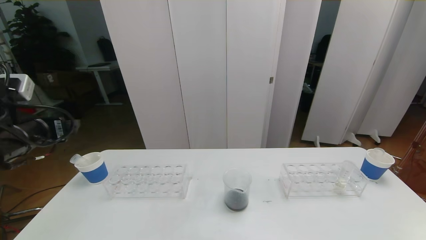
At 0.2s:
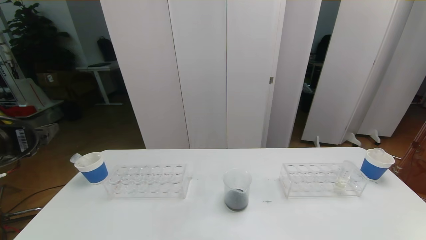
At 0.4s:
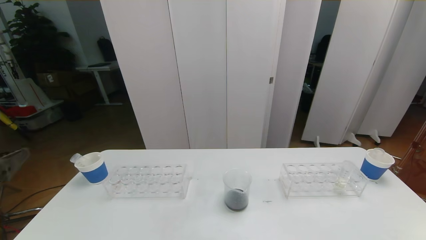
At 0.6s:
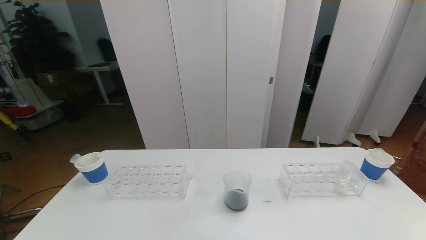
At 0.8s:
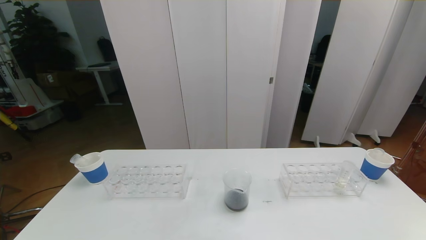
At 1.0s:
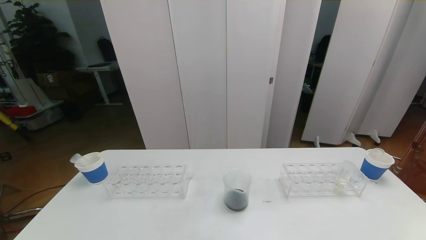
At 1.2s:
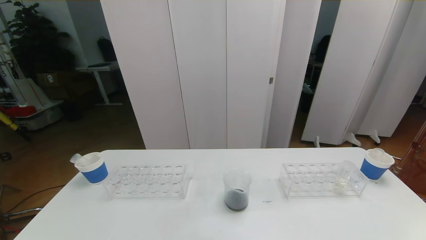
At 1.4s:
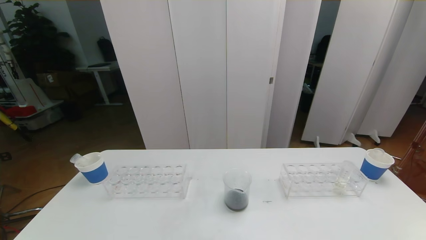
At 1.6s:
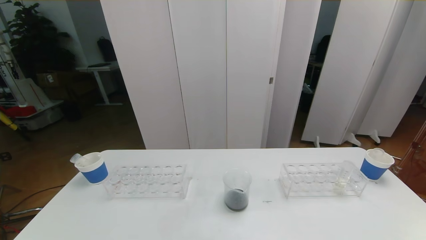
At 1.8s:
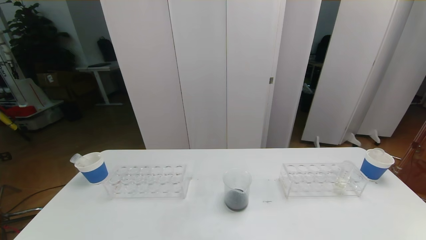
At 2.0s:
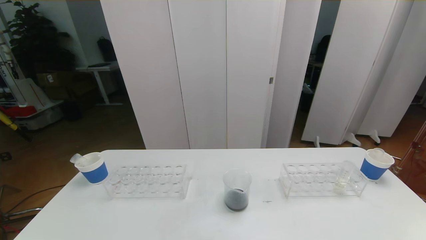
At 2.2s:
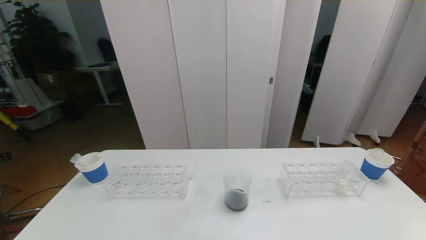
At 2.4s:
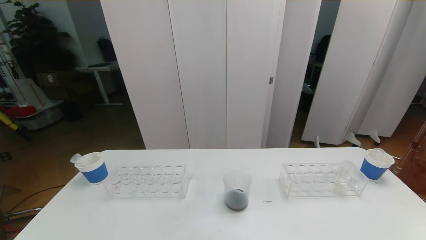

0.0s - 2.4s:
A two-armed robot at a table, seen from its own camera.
Task of the whole recording: pick up the test tube with red pigment the test tube with blue pigment and the test tube with white pigment by grippers and pour them into the beaker.
Step, 0.0s - 2.4s: Pour the orange reagent into the graduated cylinder and place the test tube into the paper cup.
0.0s - 1.2s: The left gripper heads backward, covering about 30 cm.

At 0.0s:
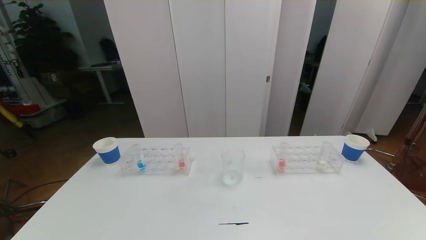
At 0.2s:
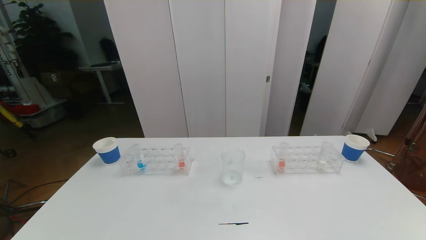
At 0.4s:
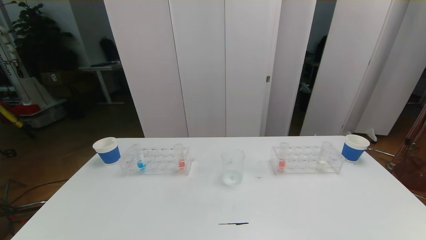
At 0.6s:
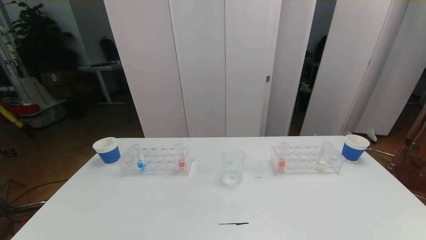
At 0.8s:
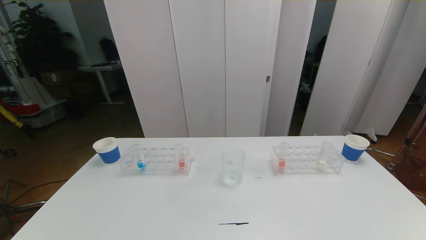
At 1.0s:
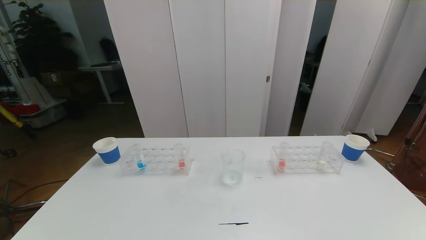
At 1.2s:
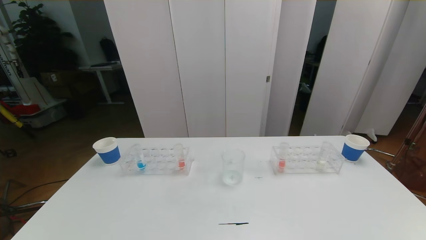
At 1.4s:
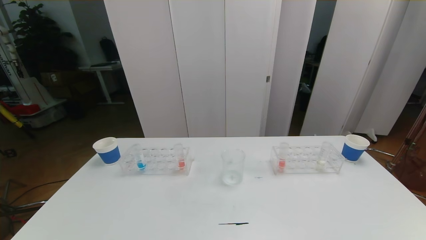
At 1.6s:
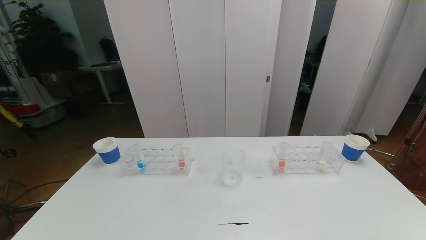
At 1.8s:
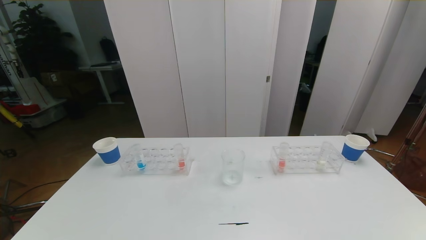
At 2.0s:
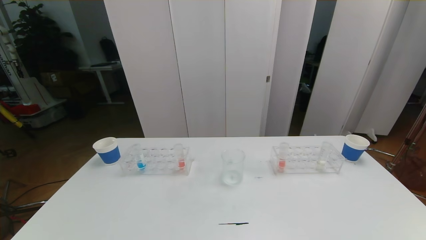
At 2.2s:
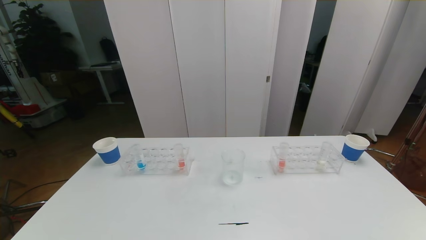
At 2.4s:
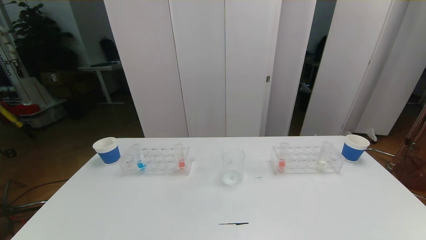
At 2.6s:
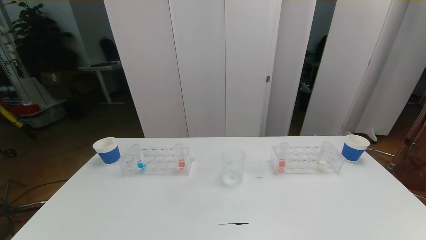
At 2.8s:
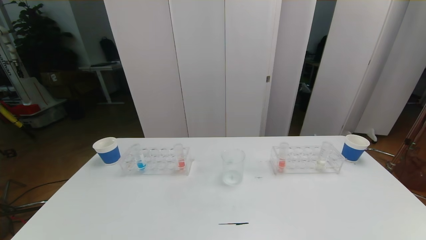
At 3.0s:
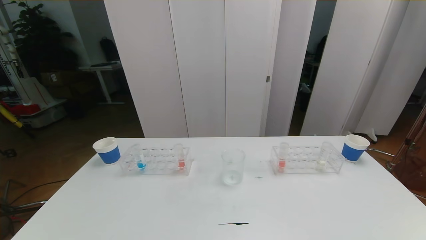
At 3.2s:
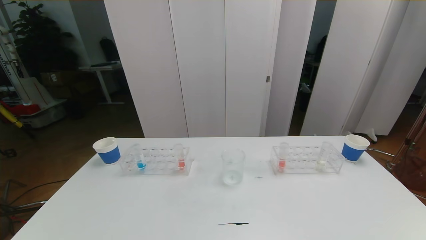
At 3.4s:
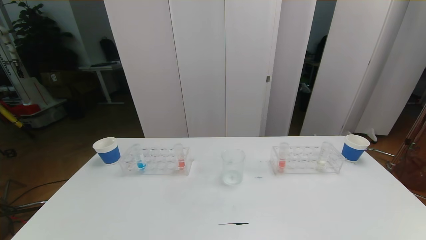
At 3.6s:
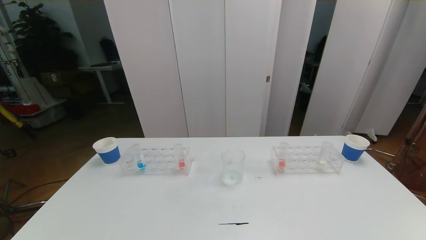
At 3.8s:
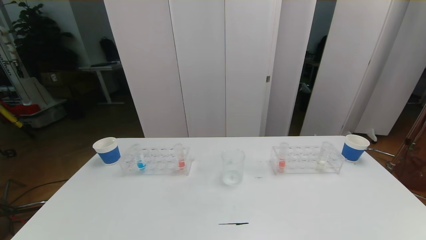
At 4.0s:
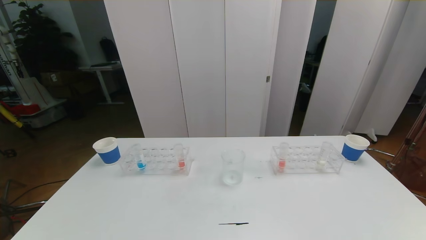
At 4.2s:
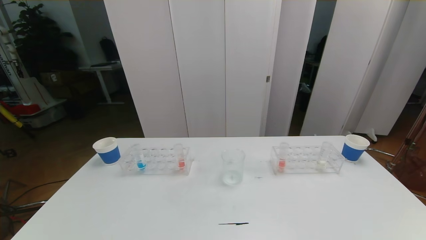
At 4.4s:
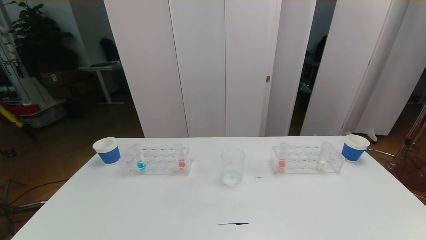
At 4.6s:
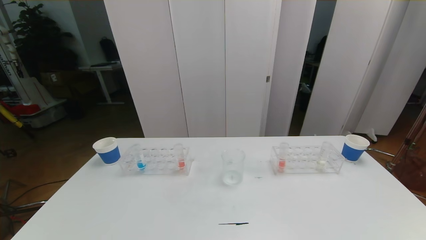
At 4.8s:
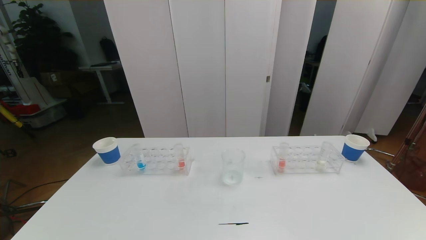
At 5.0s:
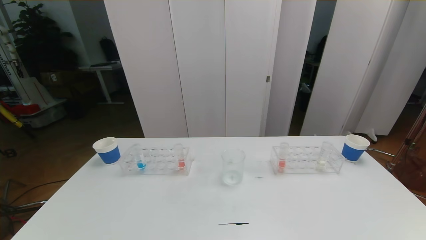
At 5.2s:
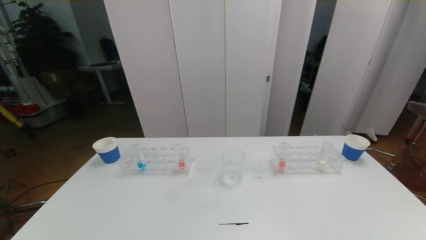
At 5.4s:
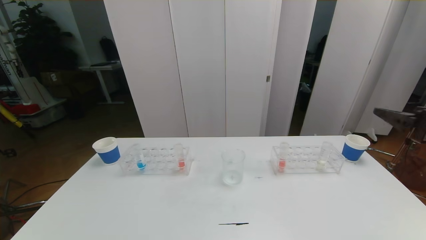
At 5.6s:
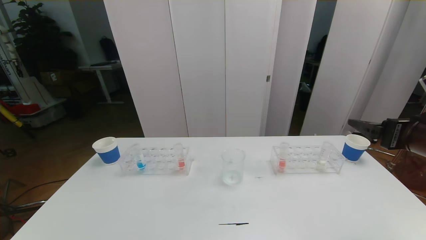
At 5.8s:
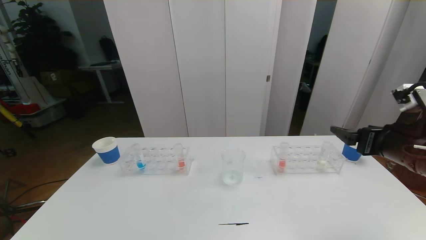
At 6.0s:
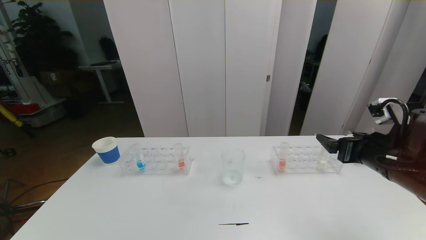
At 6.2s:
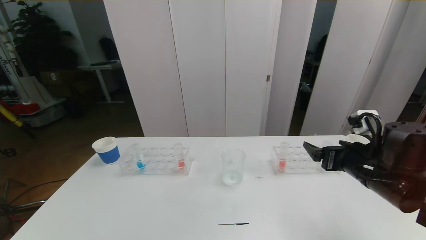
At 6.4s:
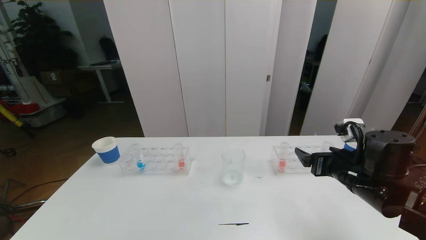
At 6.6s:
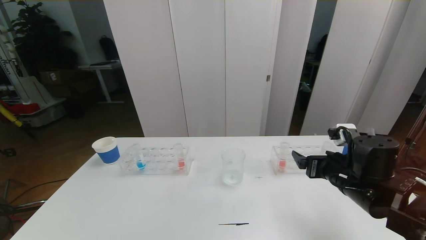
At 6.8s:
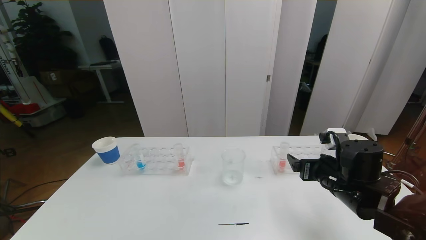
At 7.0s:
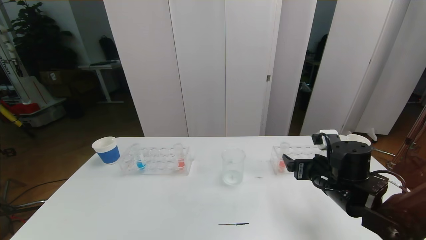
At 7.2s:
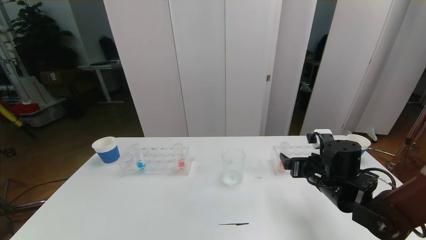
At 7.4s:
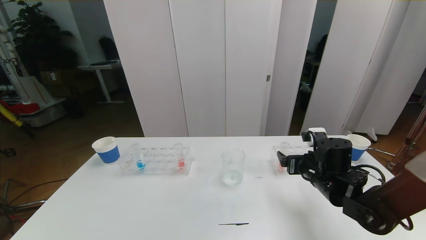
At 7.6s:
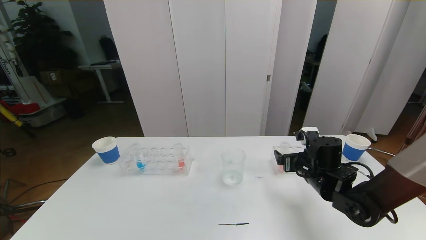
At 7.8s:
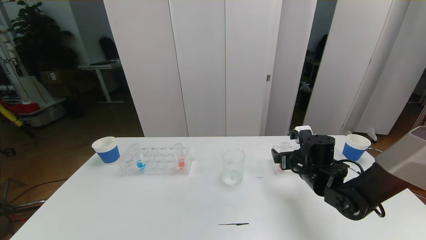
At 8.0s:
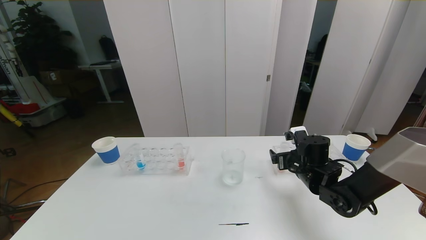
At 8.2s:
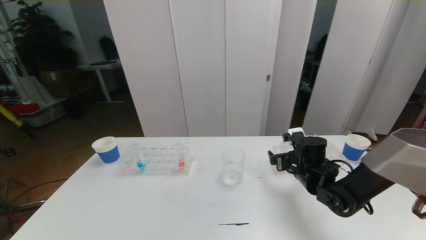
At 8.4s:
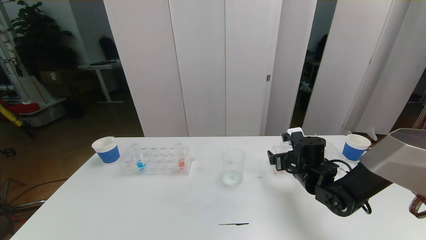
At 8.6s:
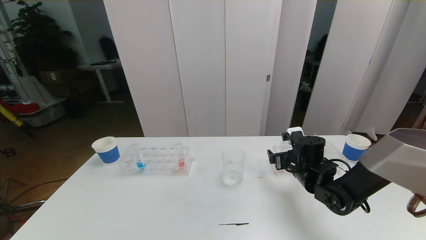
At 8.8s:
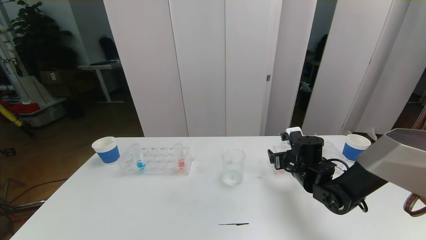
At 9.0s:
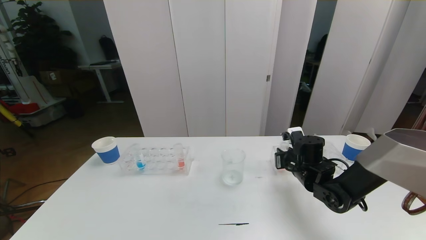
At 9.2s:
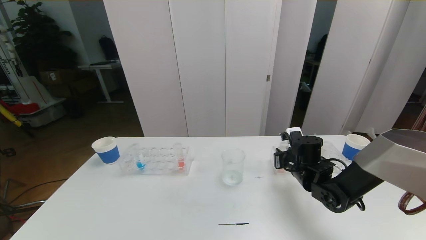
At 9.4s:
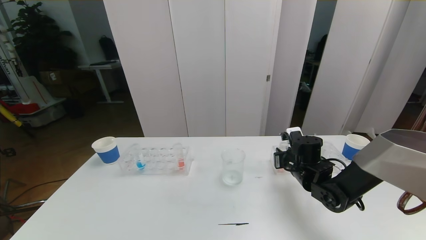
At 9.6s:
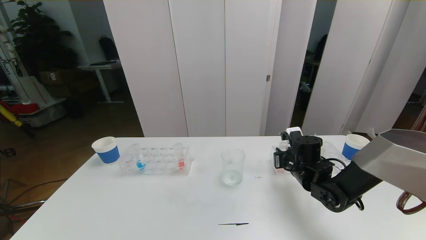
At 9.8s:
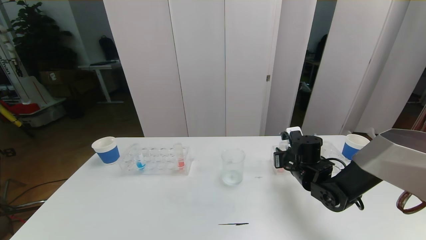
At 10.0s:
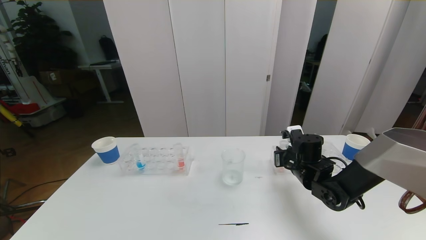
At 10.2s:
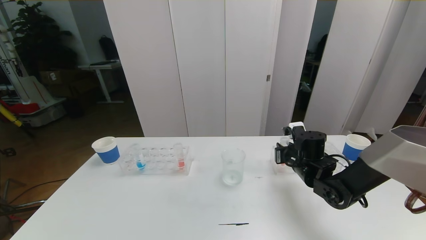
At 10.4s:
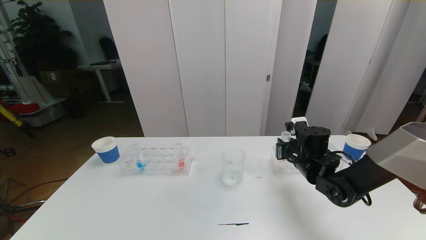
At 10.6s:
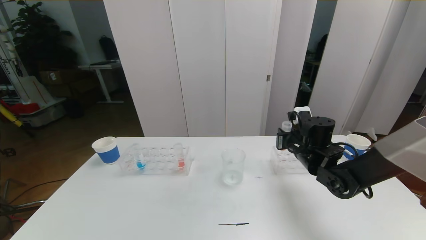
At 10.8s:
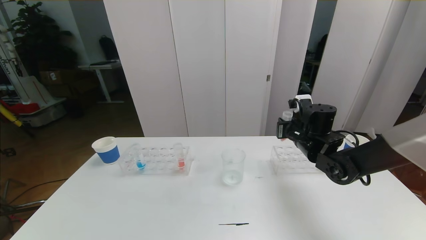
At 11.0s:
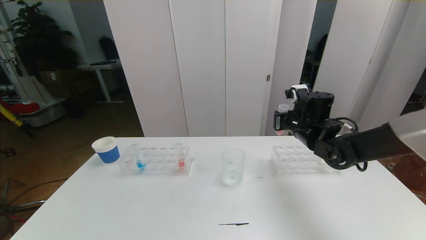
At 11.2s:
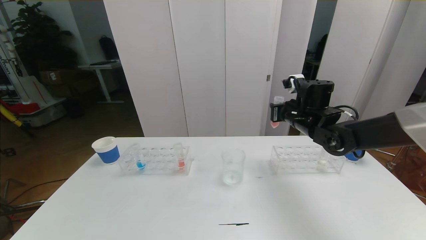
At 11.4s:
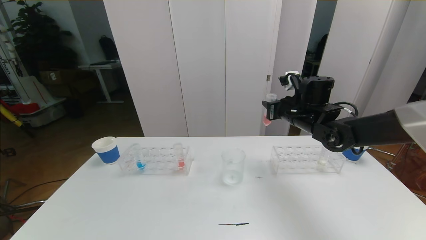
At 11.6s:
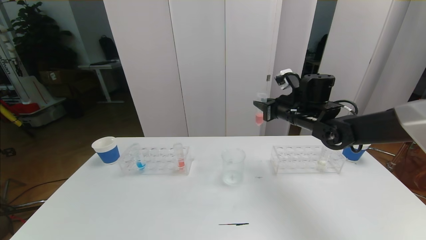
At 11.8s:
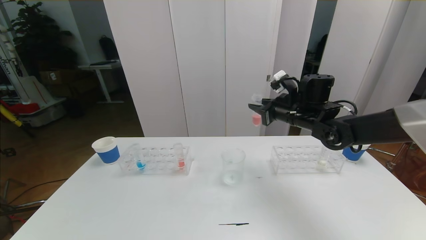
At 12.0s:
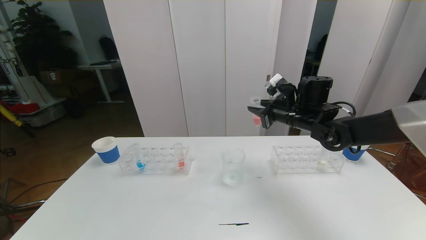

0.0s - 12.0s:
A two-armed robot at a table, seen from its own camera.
Task of the whole recording: pick up the test tube with red pigment the test tube with blue pigment and the test tube with white pigment by grippers and pour them into the beaker.
0.0s - 3.0s: The two grippers keep their place.
4.4s - 6.0s: The right gripper heads forward, covering some 25 cm.
6.0s - 7.6s: The right gripper shifts about 15 cm downward, forward and to the left.
7.6s - 9.0s: The right gripper closes its fingers.
9.0s - 10.4s: There are only small adjustments of the grippers.
10.4s - 12.0s: The right gripper shifts some 10 cm upward.

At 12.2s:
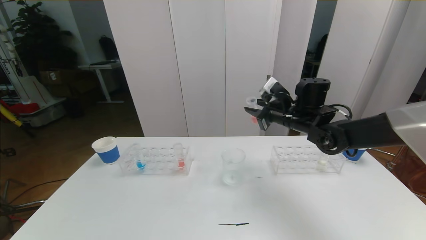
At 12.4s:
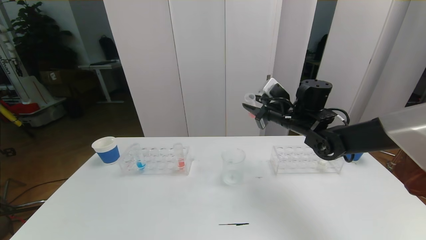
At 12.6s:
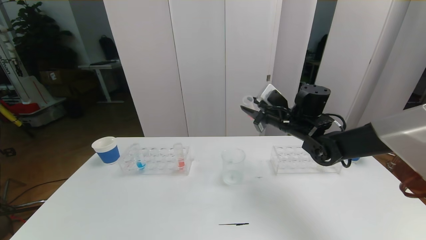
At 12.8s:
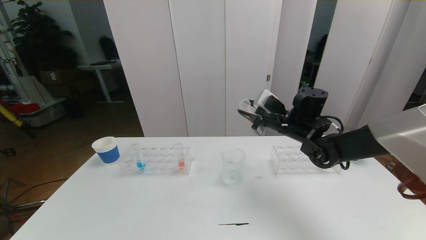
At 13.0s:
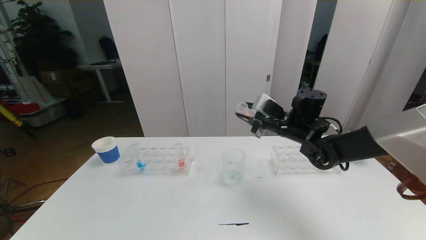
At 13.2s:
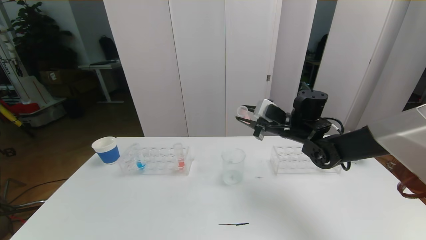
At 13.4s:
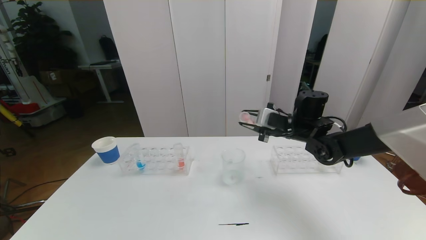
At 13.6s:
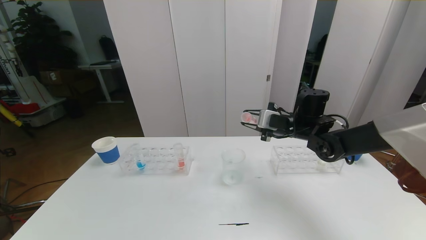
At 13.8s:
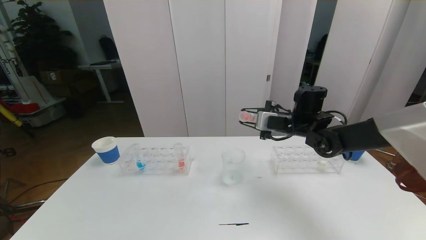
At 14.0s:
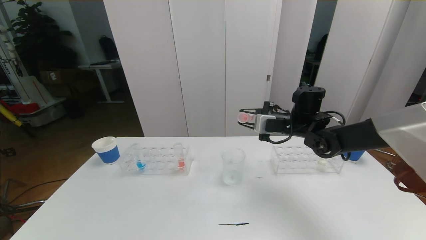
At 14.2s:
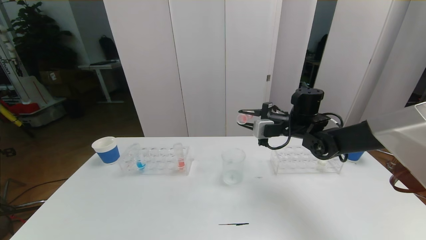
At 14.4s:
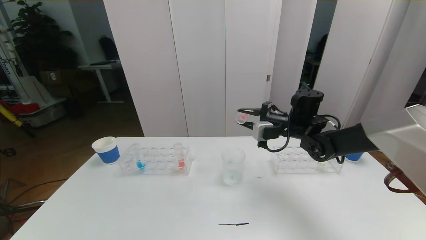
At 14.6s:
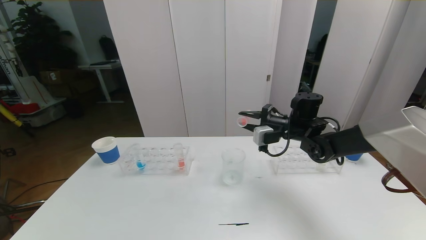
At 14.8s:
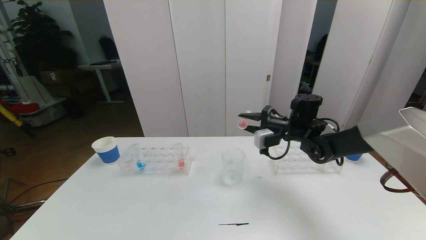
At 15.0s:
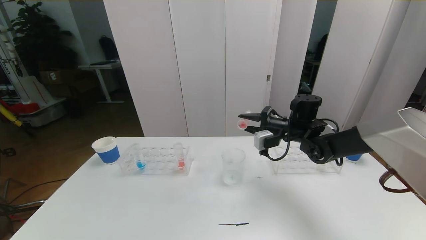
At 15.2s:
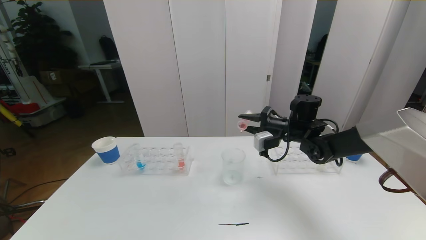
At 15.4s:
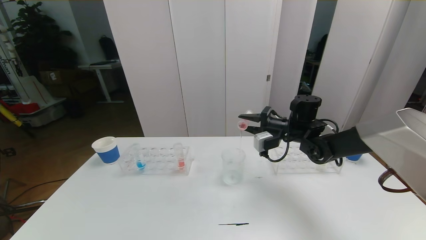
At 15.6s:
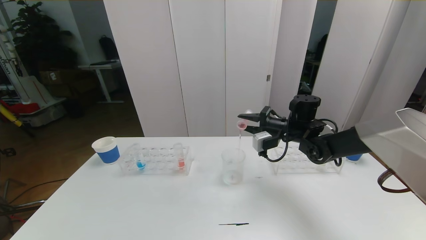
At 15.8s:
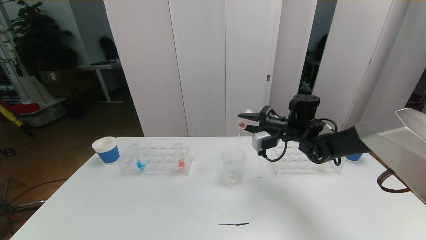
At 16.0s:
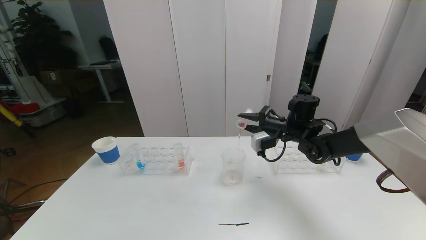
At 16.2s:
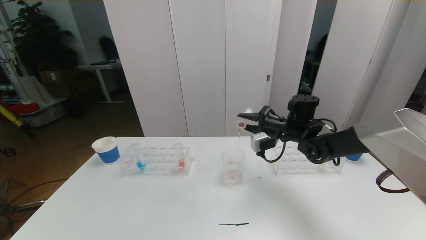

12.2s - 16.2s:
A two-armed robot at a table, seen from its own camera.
Task of the whole recording: pick up the test tube with red pigment the test tube with blue pigment and the test tube with white pigment by grippers and pour them into the beaker.
14.8s - 16.2s: There are only small adjustments of the grippers.
